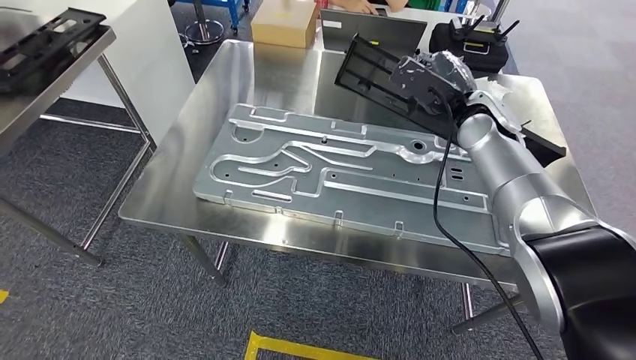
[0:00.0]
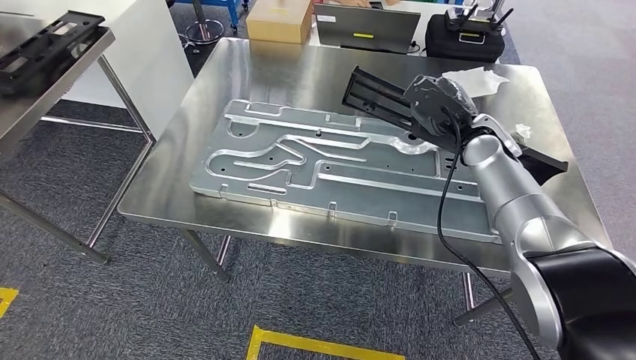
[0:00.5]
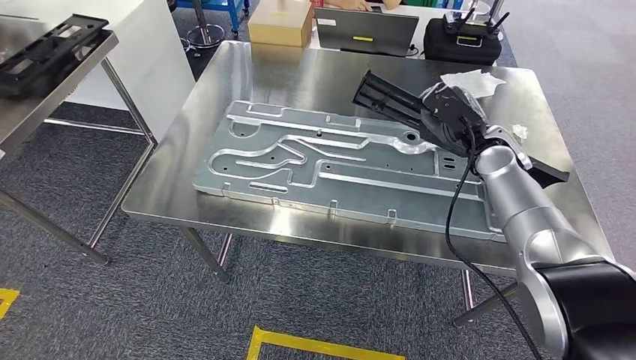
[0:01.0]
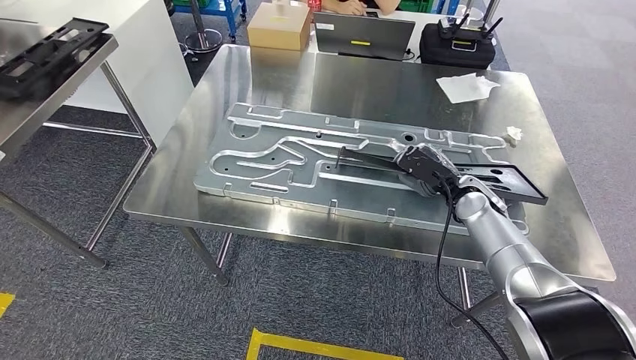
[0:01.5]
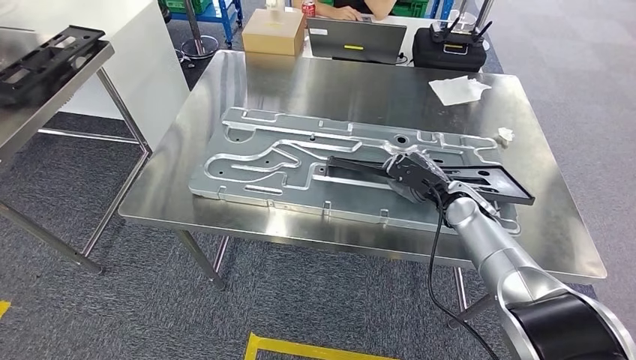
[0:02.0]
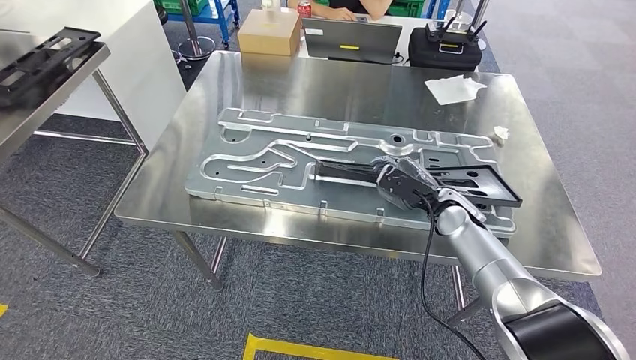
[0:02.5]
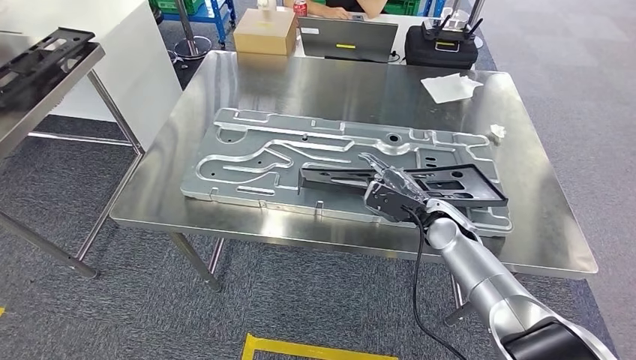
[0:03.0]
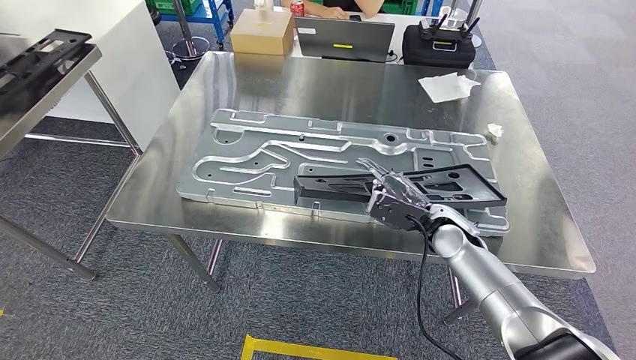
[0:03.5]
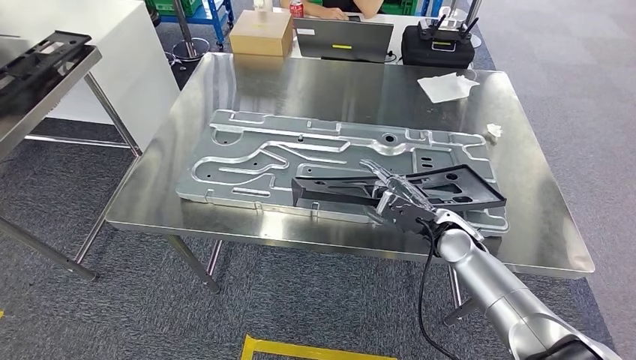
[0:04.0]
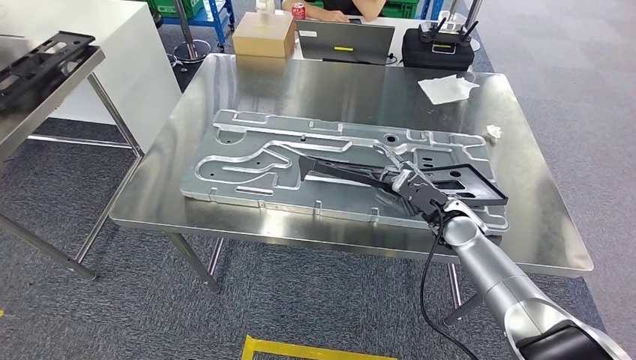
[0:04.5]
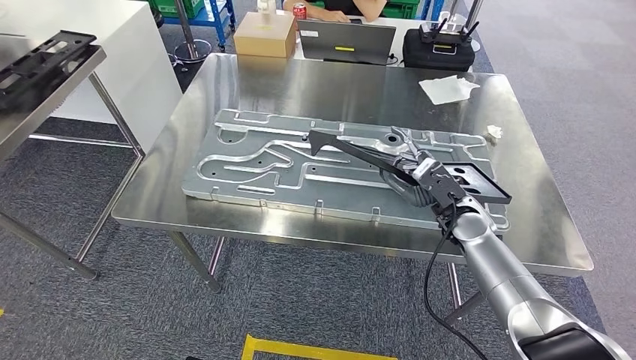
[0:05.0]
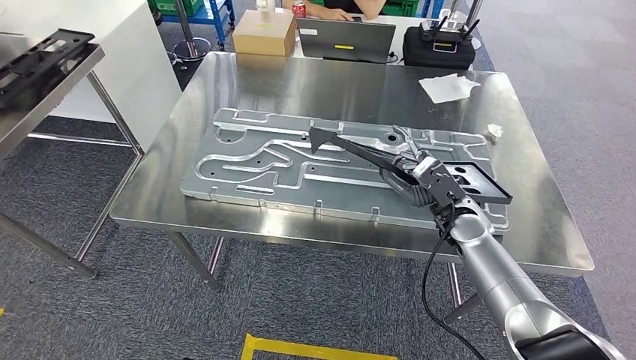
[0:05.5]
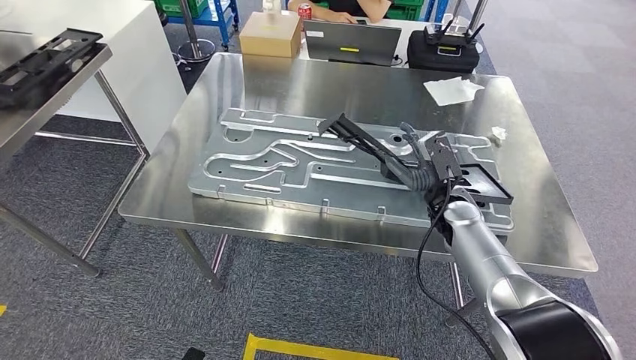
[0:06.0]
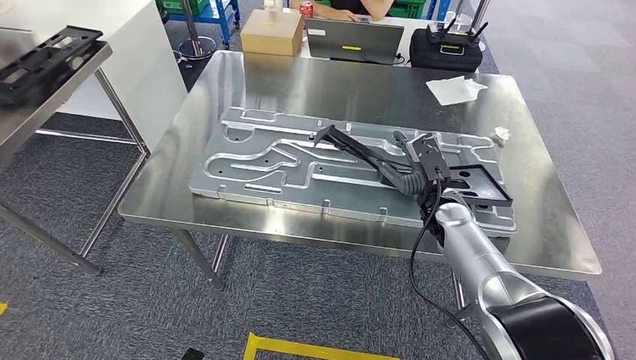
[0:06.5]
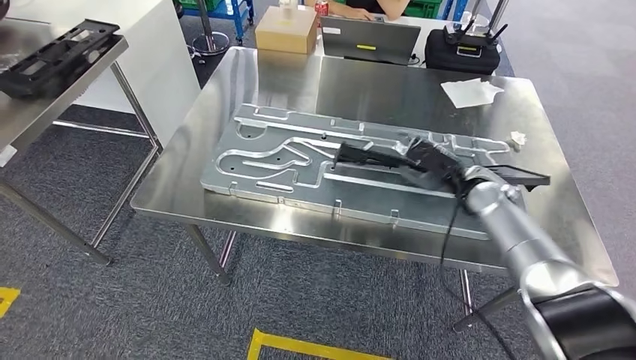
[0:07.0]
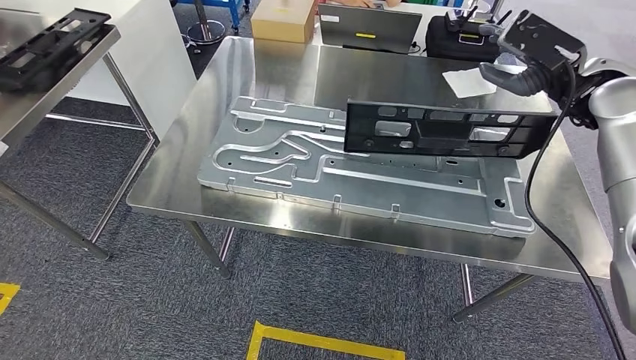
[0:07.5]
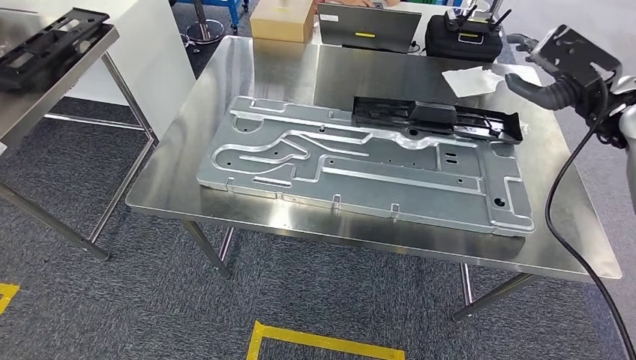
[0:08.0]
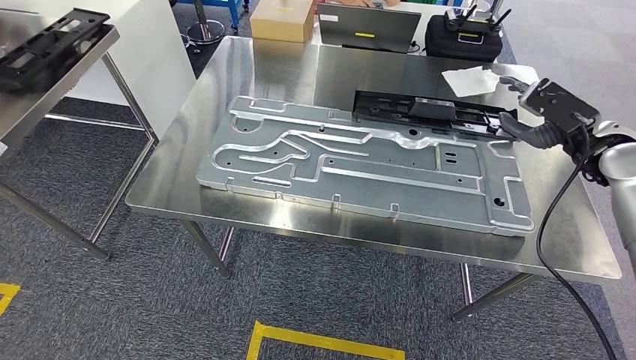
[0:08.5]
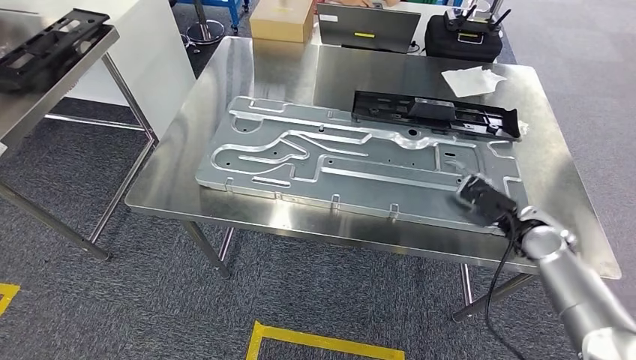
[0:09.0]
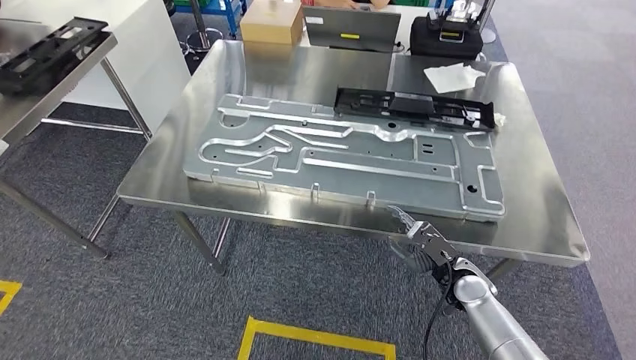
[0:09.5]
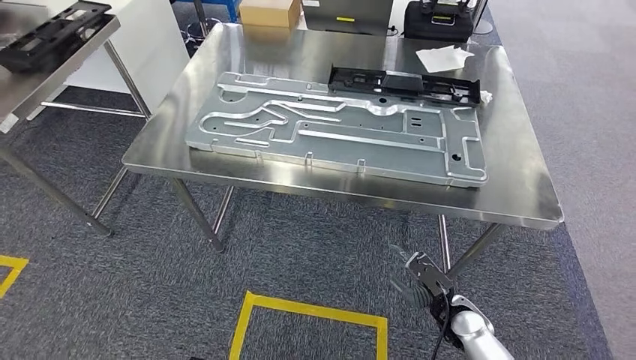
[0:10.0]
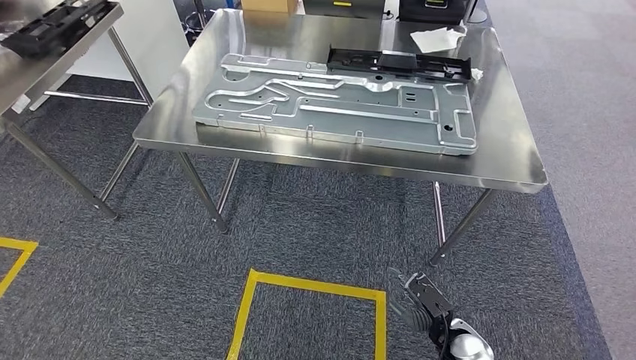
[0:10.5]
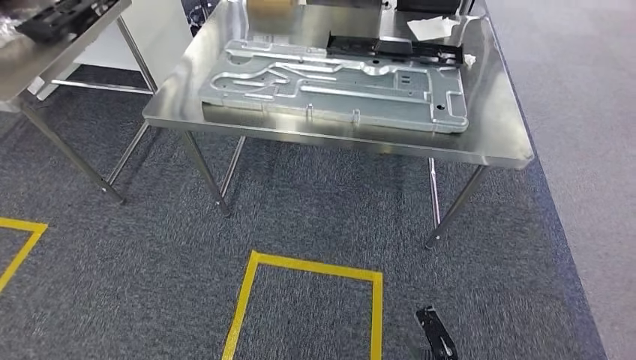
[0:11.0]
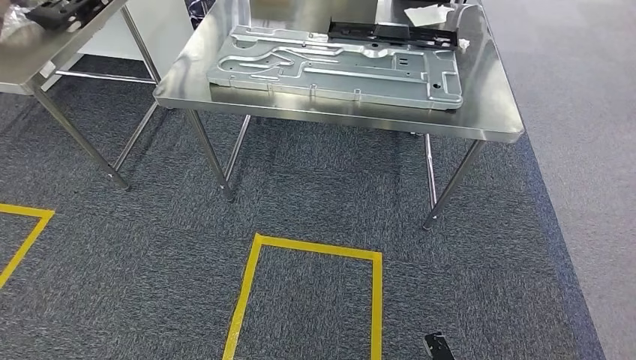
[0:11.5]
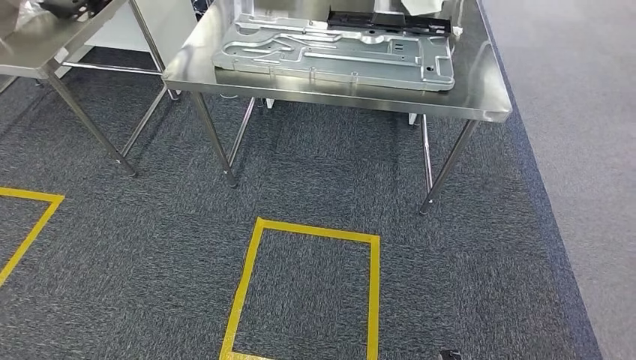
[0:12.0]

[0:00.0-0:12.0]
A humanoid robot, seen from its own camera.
Step, 0:00.0 to 0:06.0: Insert the large material into the corresponding slot on the workbench.

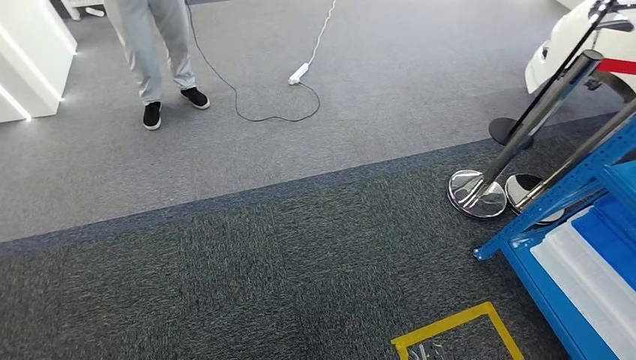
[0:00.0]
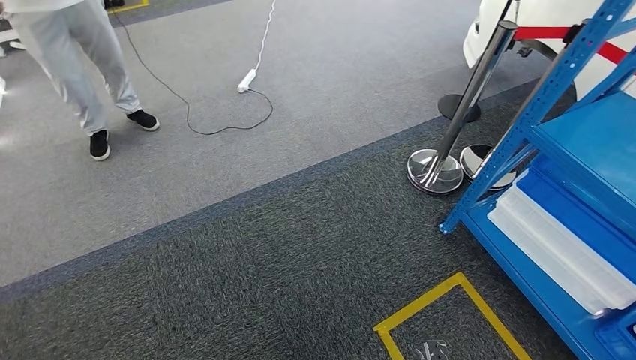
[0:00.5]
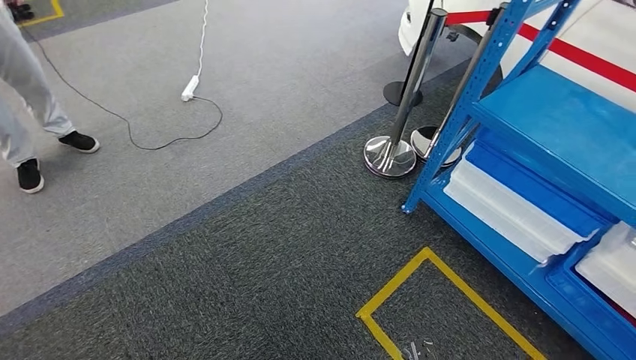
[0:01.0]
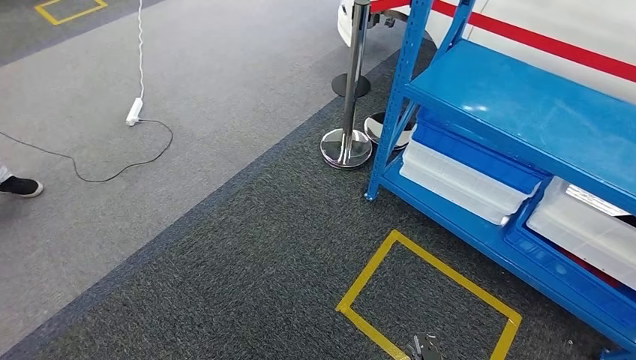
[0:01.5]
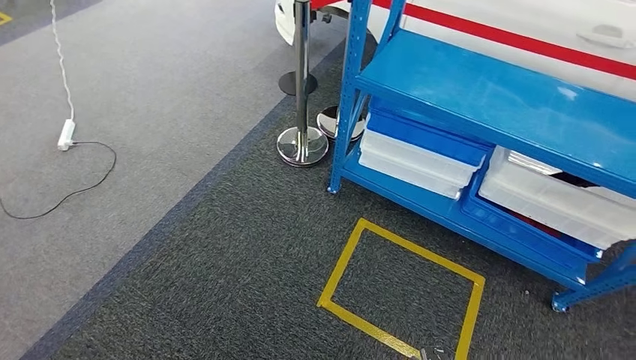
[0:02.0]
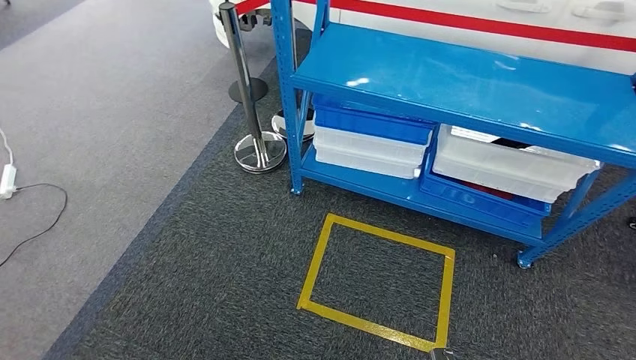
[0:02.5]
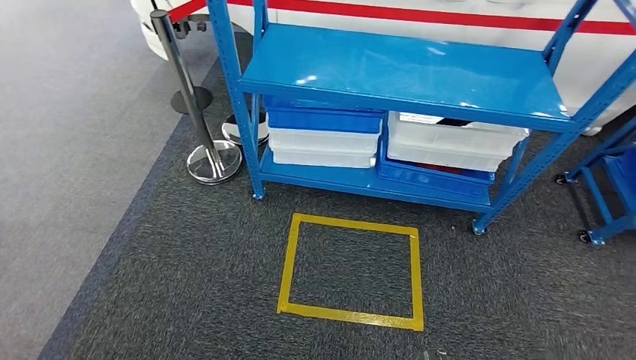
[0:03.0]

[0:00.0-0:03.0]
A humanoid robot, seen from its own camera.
Step, 0:00.0 to 0:03.0: Return to the initial position at the shelf.
